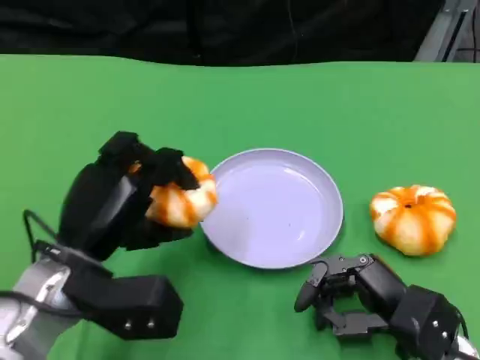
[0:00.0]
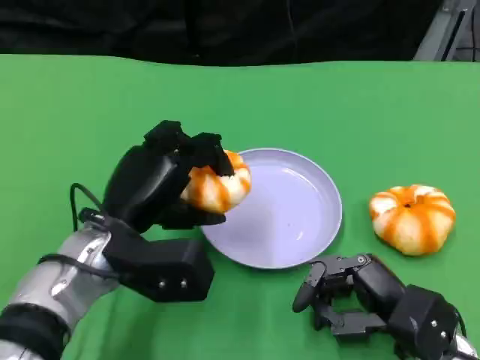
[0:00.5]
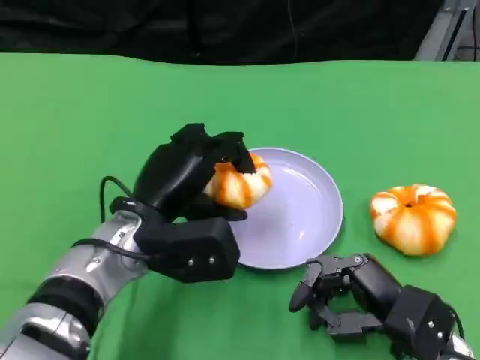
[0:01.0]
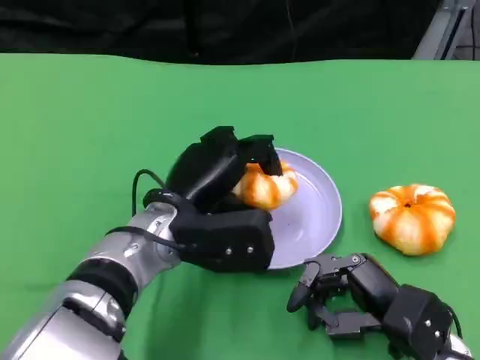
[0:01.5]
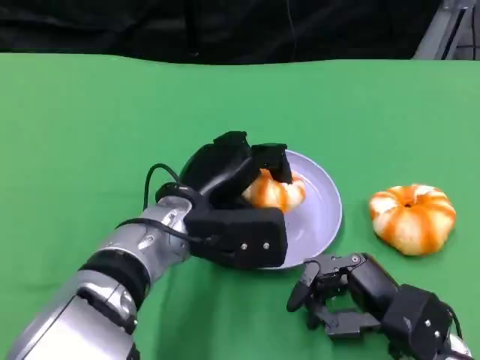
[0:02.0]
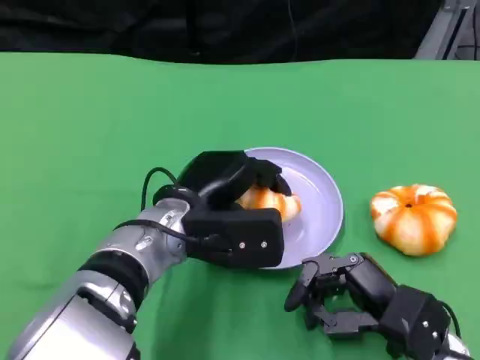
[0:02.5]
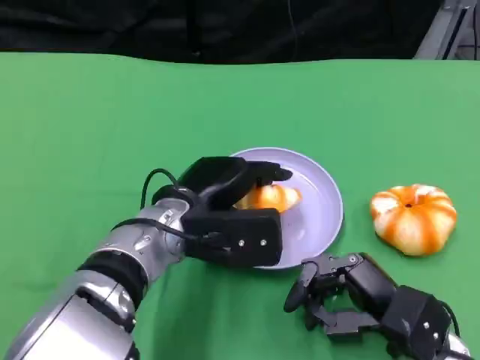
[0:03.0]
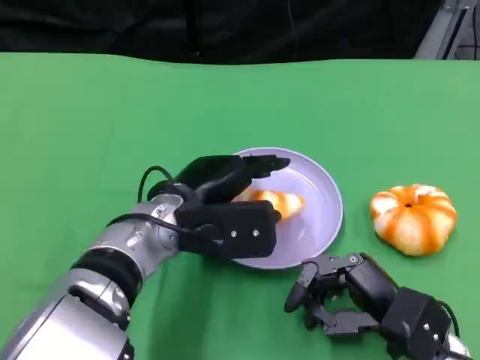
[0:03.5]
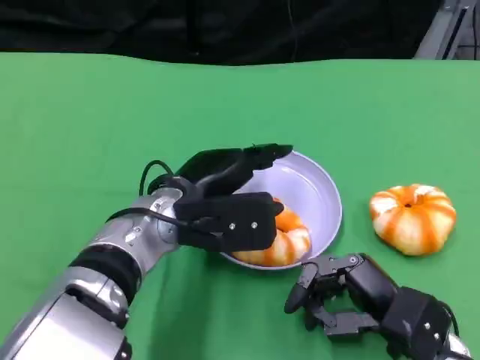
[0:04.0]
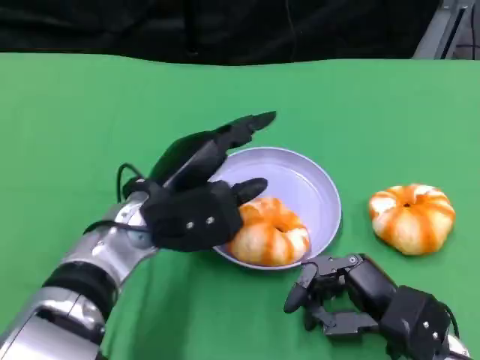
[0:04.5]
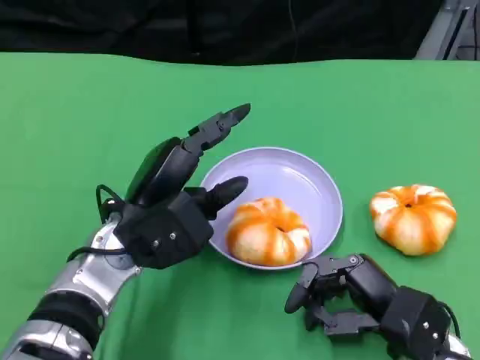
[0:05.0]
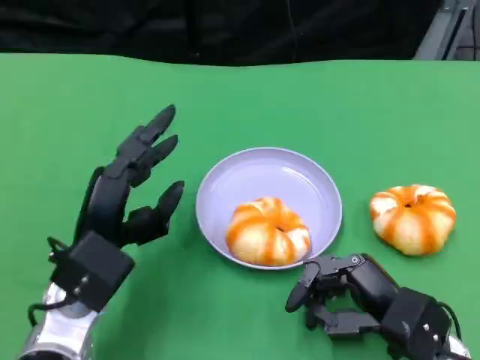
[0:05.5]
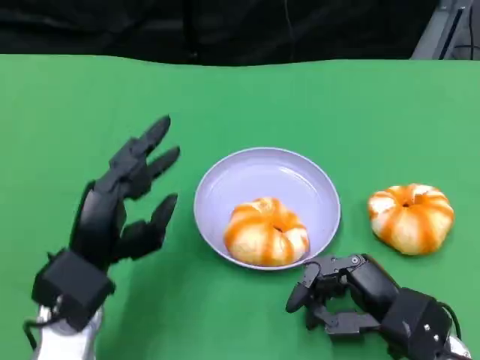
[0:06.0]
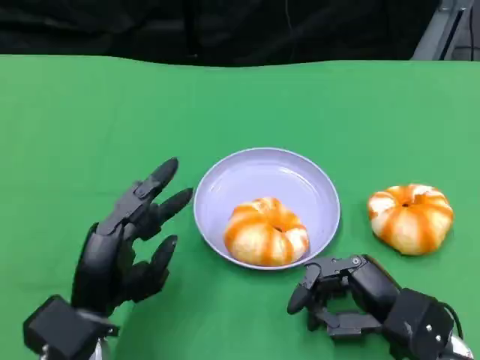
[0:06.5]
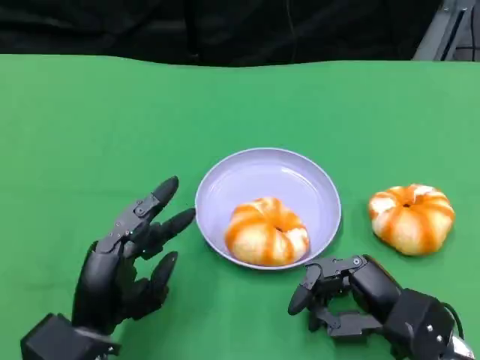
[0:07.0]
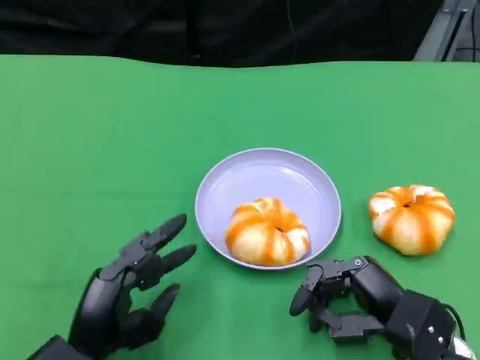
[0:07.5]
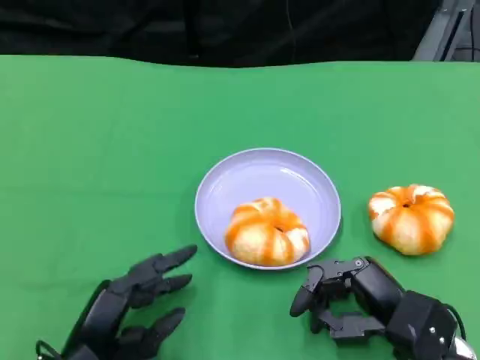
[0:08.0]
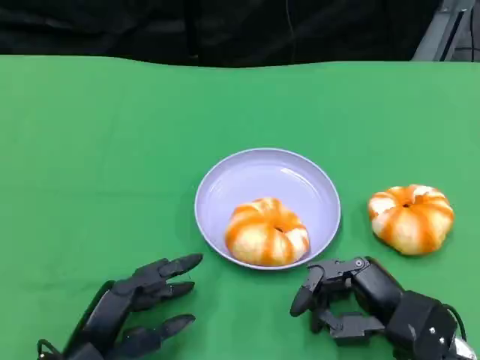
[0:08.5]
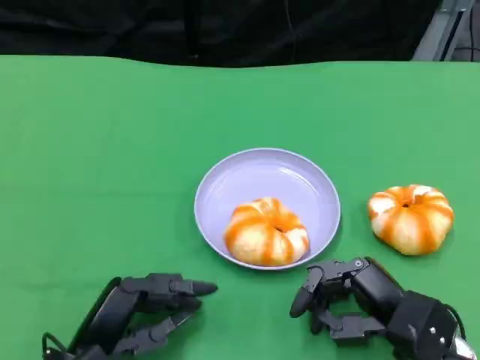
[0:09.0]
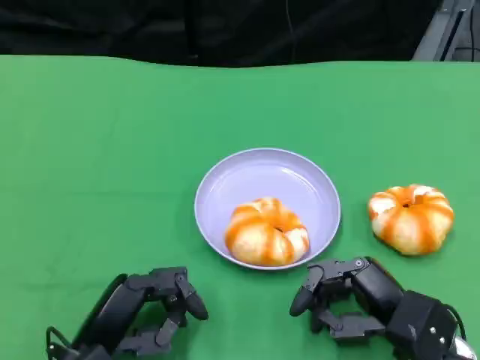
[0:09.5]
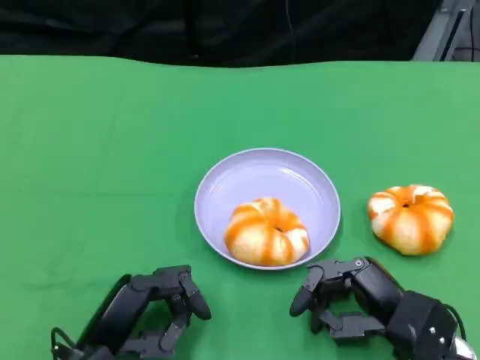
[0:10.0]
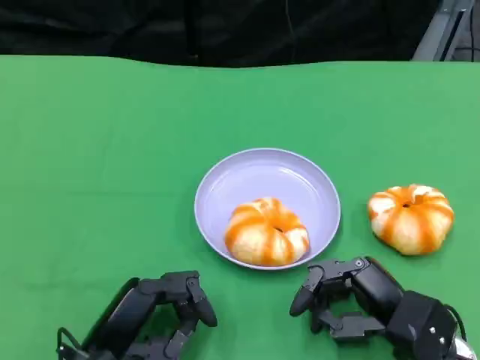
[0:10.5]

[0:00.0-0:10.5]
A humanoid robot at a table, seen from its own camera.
Task of the whole recording: Grasp the bread from the table and place it into the plate.
0:00.0 to 0:02.0: The left hand is displaced to the right by some 10 cm.
0:02.0 to 0:04.0: The hands make only small movements.
0:04.0 to 0:06.5: The left hand travels backward, to the left and downward by approximately 15 cm.
0:08.5 to 0:10.5: There are only small adjustments of the hands.

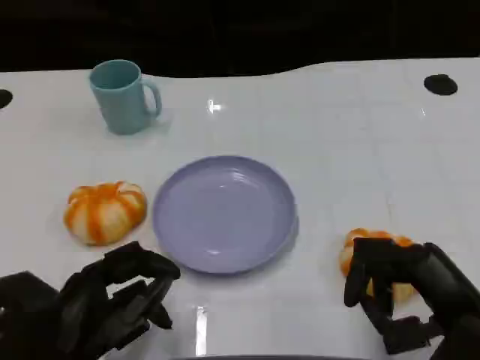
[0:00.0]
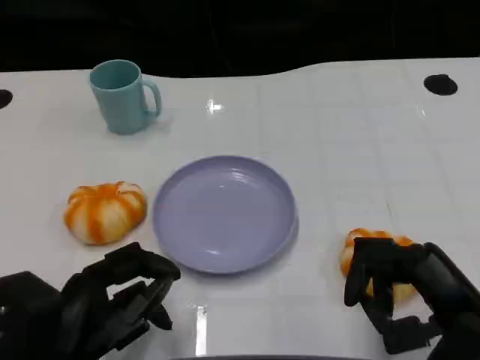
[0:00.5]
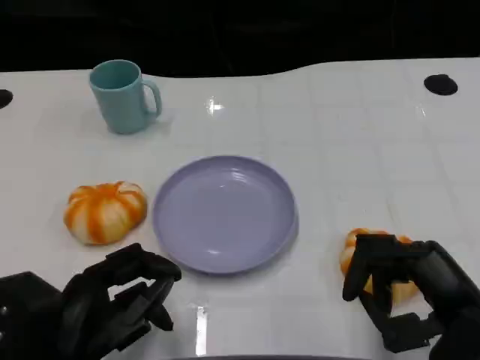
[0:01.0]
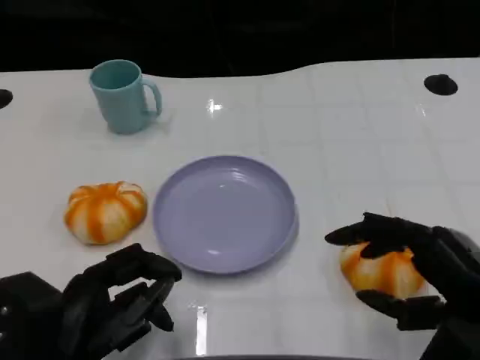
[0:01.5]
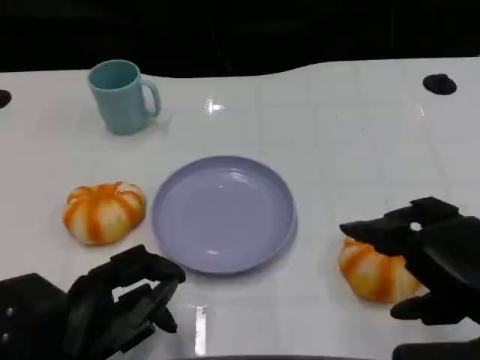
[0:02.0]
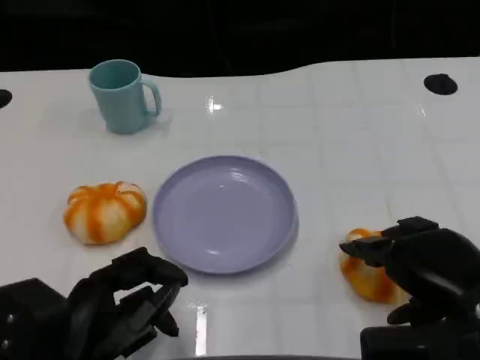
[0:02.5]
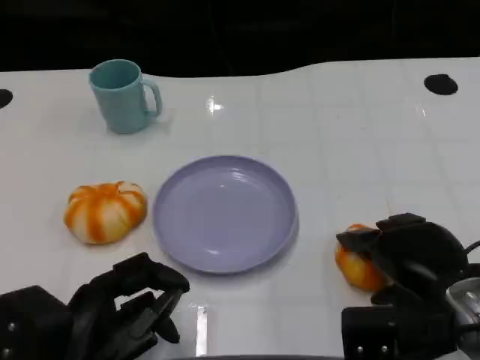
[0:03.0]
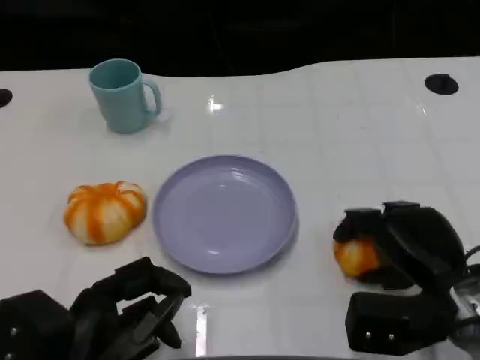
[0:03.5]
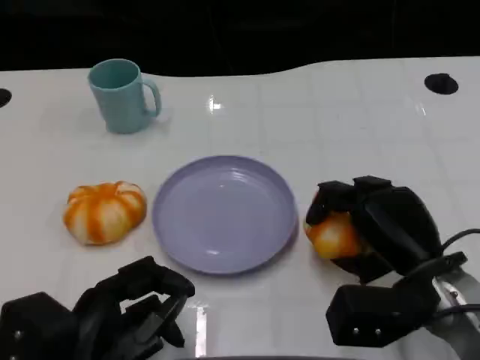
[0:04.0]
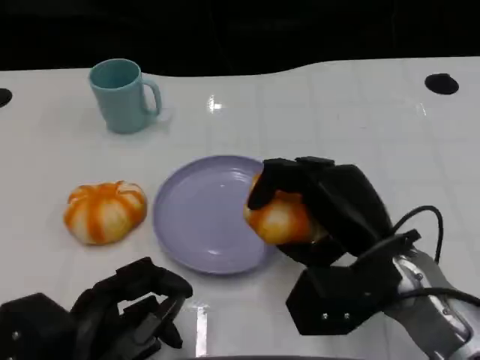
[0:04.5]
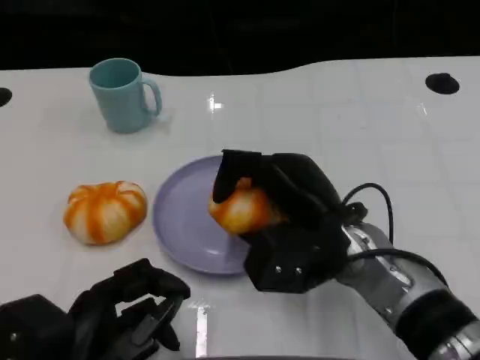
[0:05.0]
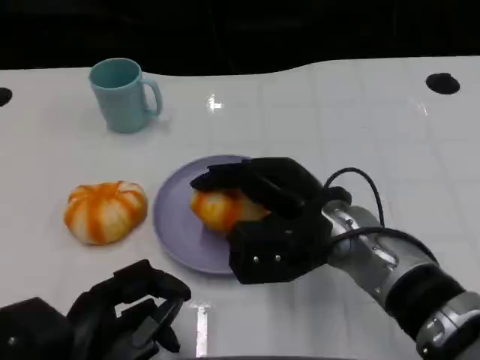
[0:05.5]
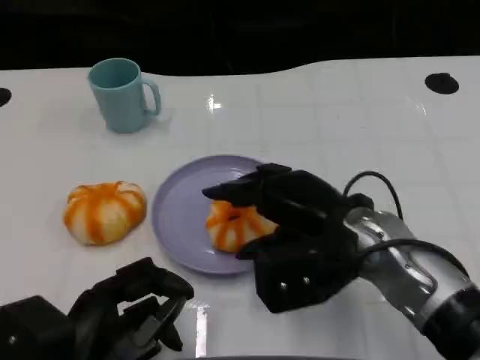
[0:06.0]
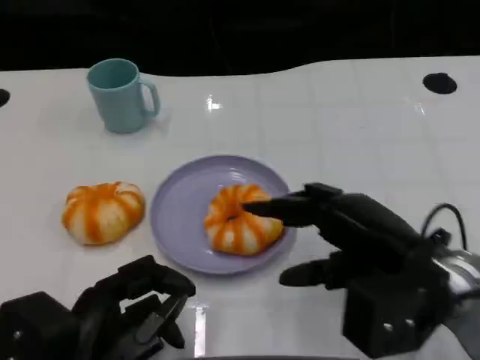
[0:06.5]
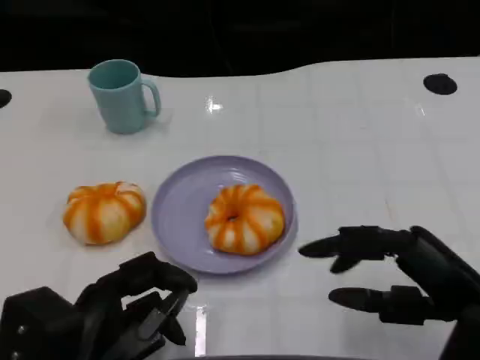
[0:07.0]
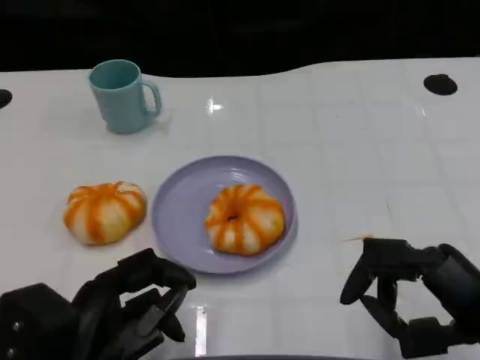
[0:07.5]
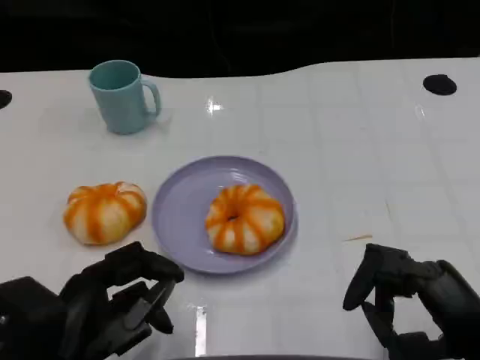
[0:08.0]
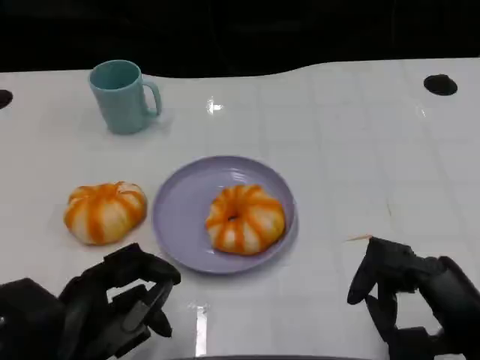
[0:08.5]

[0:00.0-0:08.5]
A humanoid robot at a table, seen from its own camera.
Task of the whole recording: Grasp the bread from the table and place it into the plate.
0:00.0 to 0:02.0: The right hand moves upward, approximately 5 cm.
0:02.0 to 0:04.0: The right hand is displaced downward, forward and to the left by about 10 cm.
0:04.0 to 0:06.5: The right hand is displaced upward by roughly 5 cm, and reaches roughly 10 cm to the left, then returns.
0:06.5 to 0:08.5: The right hand travels backward by approximately 5 cm.

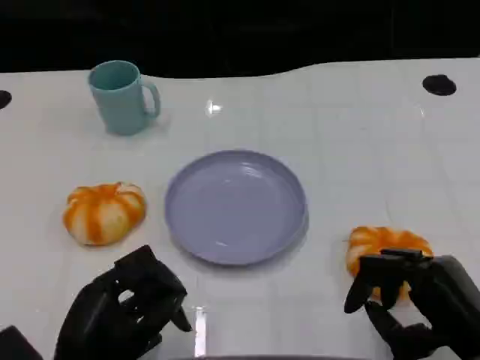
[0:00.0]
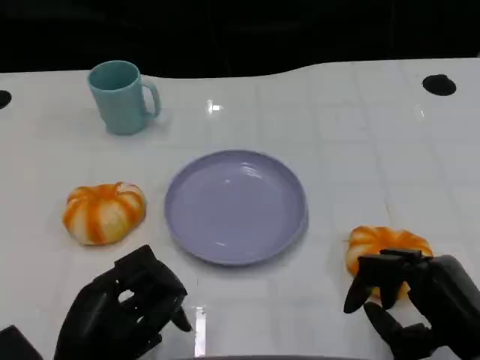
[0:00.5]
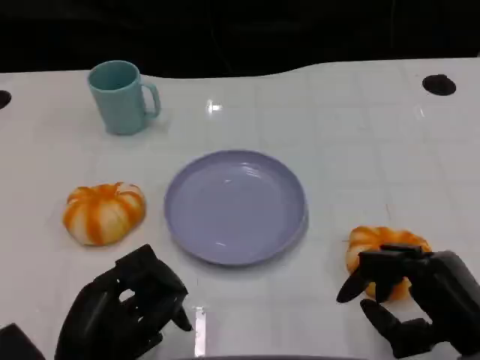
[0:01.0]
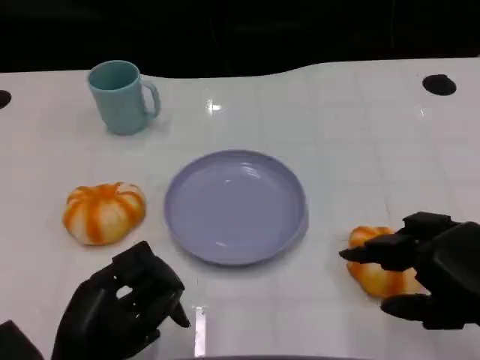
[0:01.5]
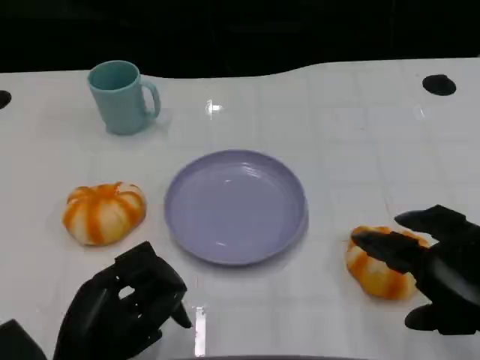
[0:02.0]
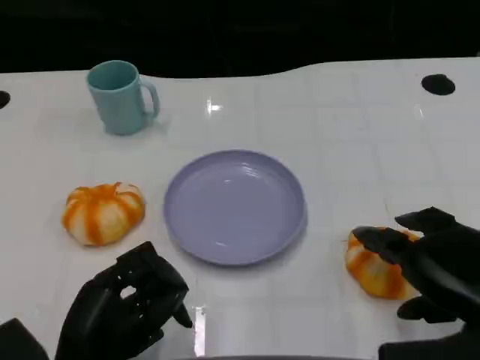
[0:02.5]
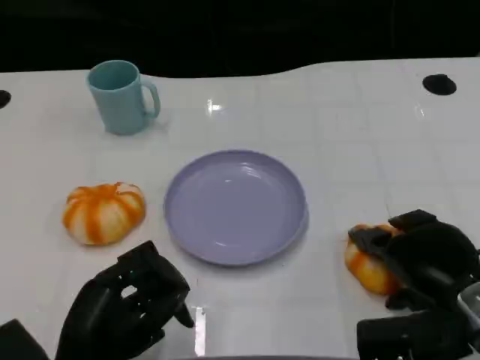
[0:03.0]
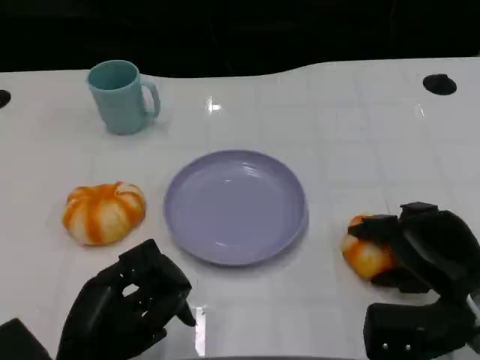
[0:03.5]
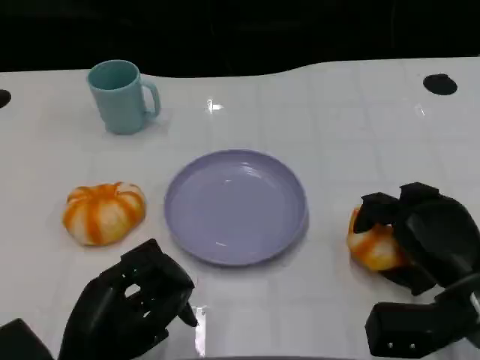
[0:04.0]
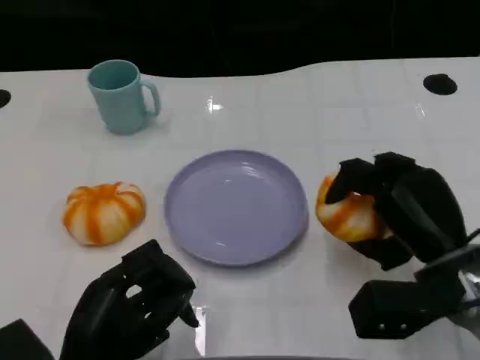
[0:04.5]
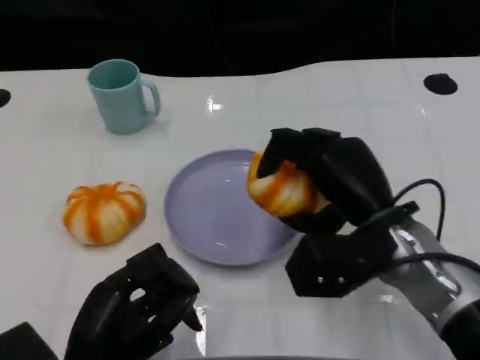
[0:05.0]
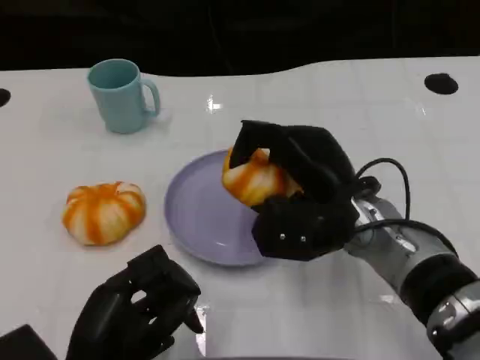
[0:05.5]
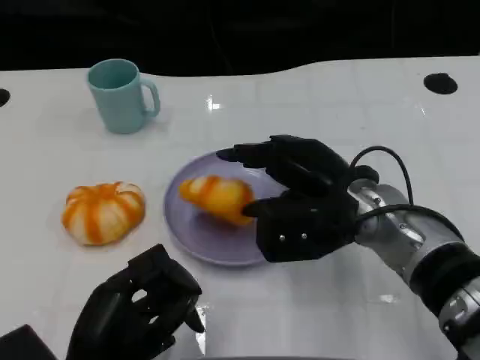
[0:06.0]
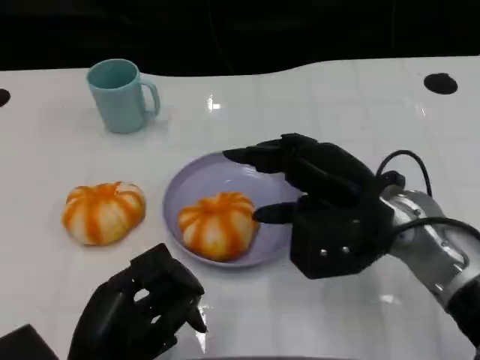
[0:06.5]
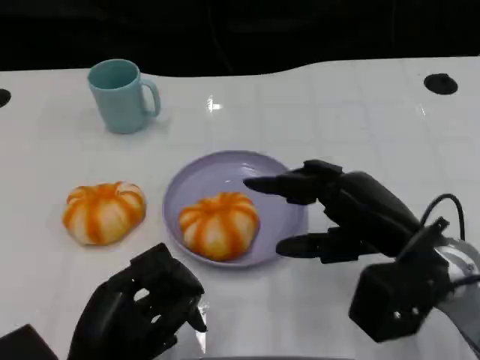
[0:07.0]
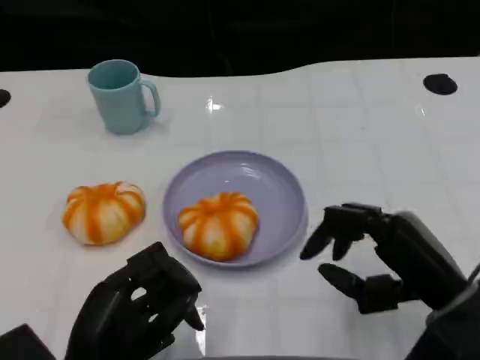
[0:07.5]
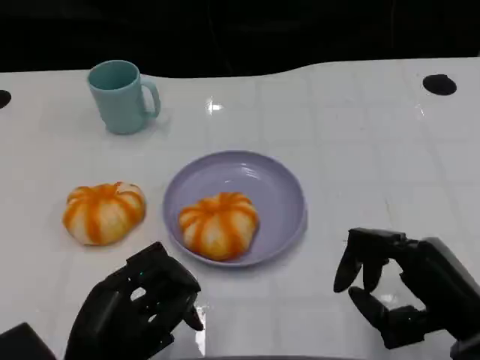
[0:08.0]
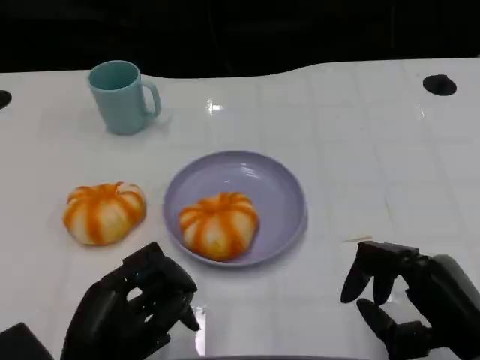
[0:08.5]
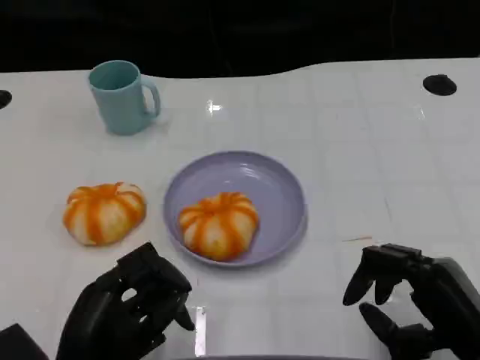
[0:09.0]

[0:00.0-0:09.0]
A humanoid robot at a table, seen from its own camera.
Task of the whole recording: Grasp the bread from the table and place it into the plate.
0:00.0 to 0:02.0: The right hand heads upward, covering roughly 5 cm.
0:02.0 to 0:04.5: The right hand moves forward and to the left, approximately 10 cm.
0:04.5 to 0:07.0: The right hand travels to the left and back again, roughly 10 cm each way.
0:07.0 to 0:09.0: The right hand is displaced backward and downward by some 10 cm.
